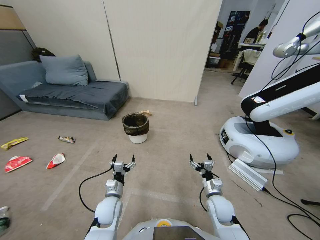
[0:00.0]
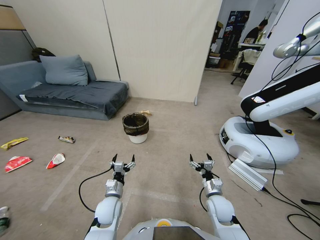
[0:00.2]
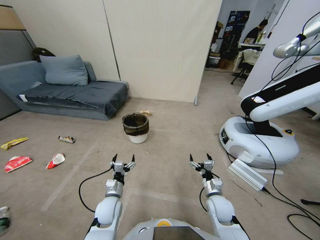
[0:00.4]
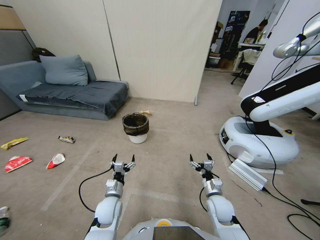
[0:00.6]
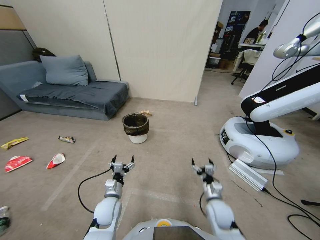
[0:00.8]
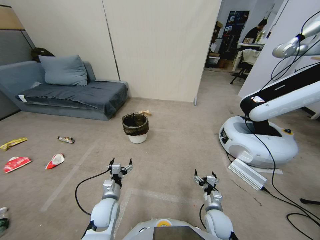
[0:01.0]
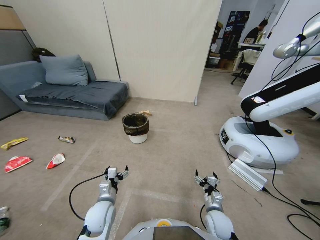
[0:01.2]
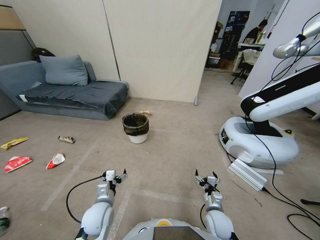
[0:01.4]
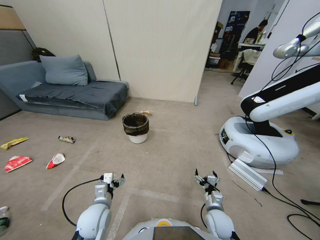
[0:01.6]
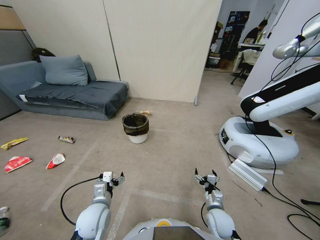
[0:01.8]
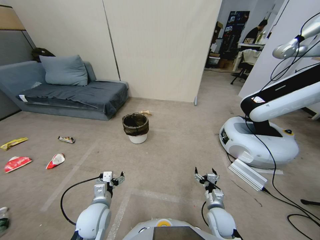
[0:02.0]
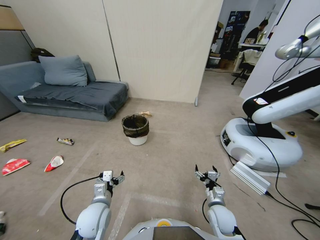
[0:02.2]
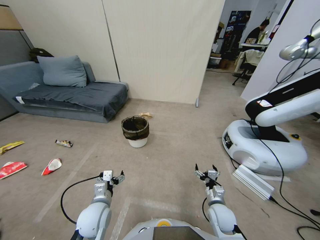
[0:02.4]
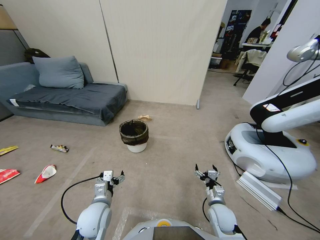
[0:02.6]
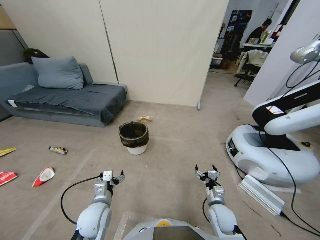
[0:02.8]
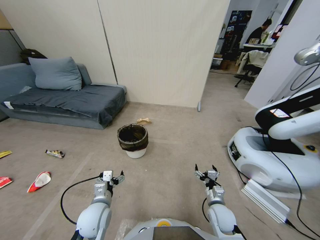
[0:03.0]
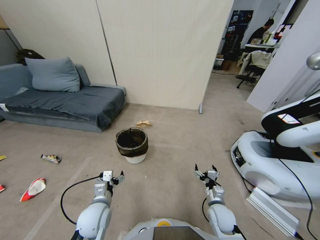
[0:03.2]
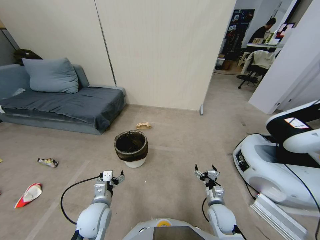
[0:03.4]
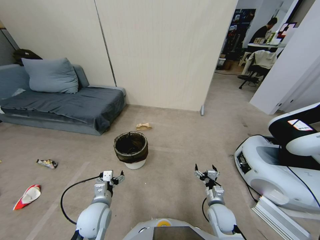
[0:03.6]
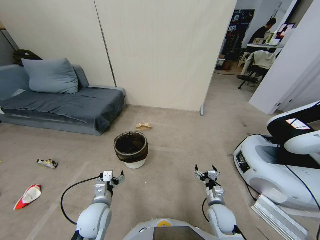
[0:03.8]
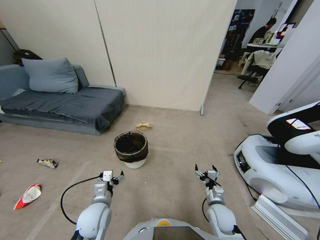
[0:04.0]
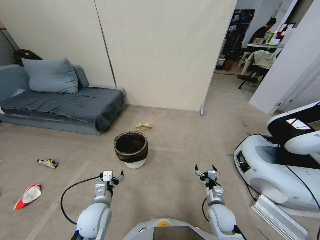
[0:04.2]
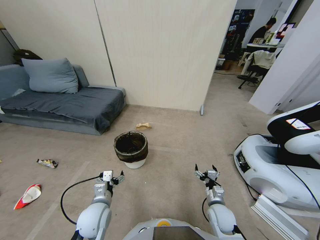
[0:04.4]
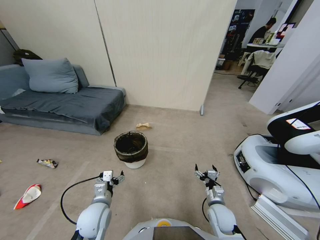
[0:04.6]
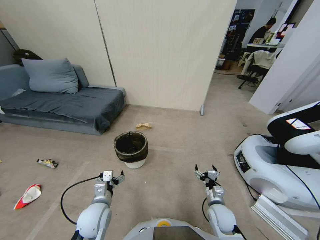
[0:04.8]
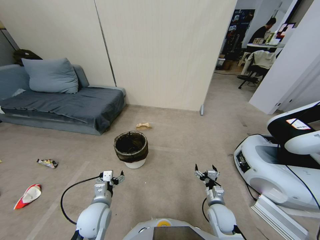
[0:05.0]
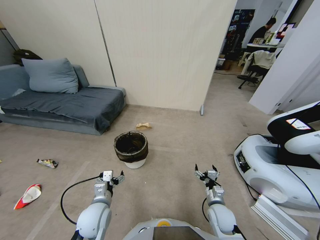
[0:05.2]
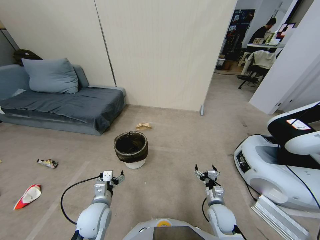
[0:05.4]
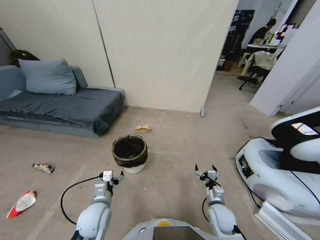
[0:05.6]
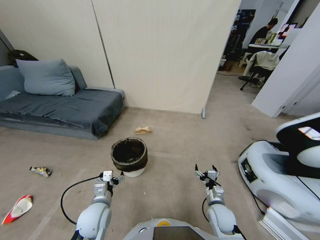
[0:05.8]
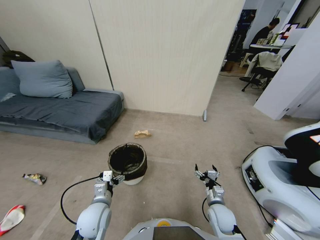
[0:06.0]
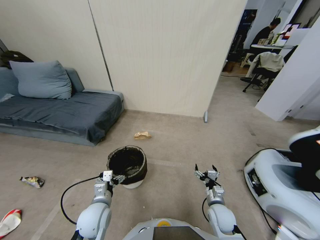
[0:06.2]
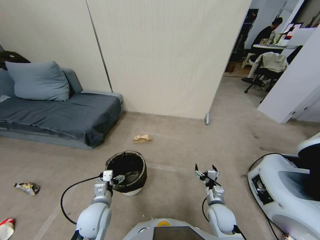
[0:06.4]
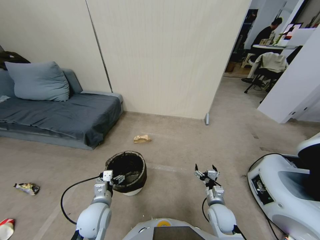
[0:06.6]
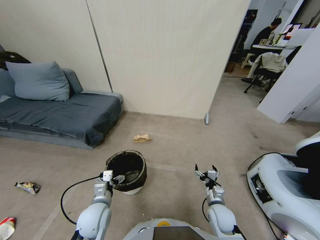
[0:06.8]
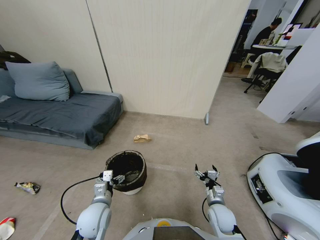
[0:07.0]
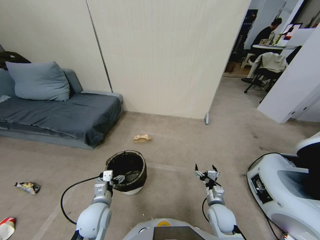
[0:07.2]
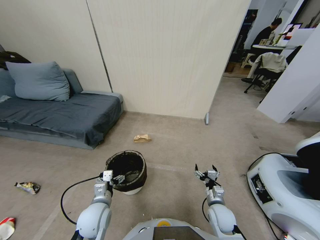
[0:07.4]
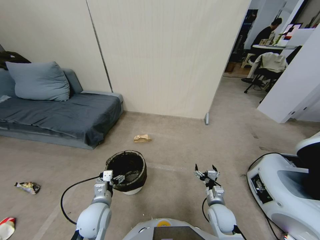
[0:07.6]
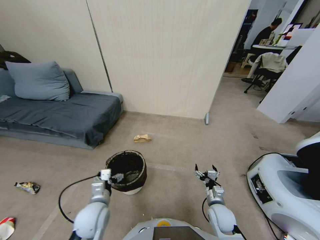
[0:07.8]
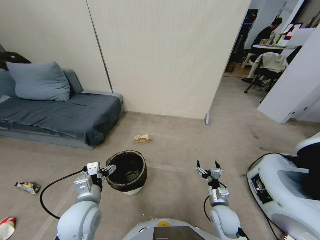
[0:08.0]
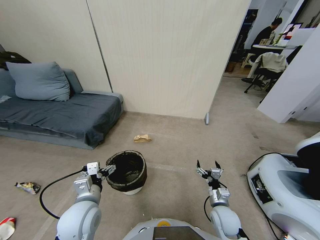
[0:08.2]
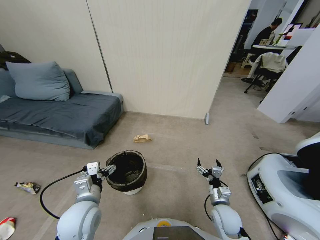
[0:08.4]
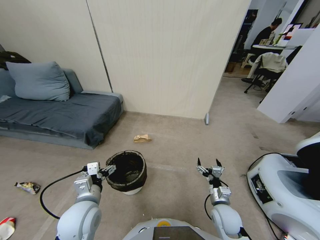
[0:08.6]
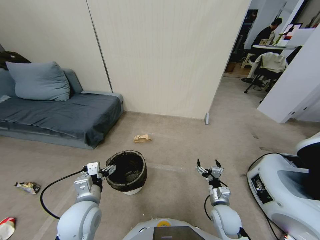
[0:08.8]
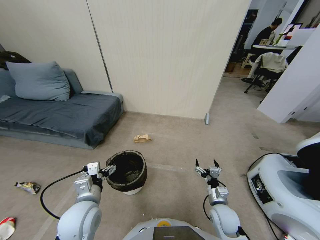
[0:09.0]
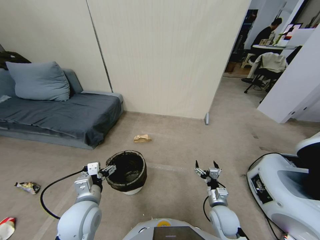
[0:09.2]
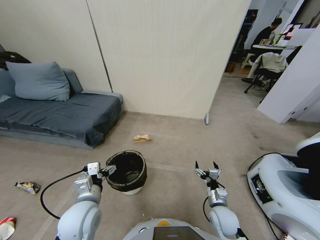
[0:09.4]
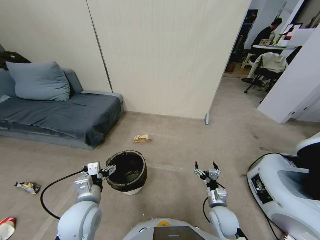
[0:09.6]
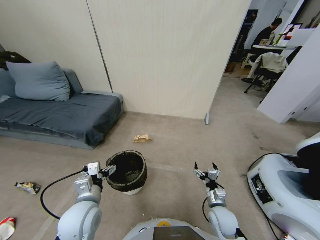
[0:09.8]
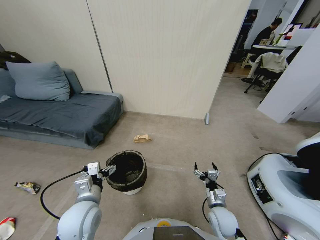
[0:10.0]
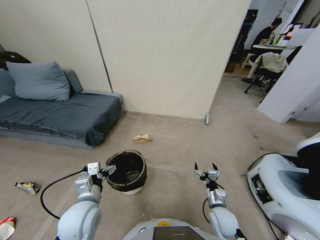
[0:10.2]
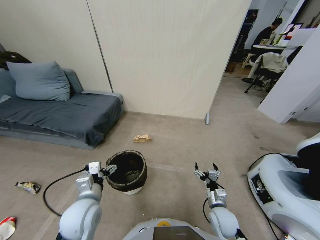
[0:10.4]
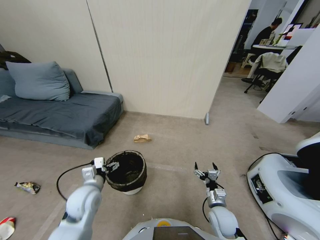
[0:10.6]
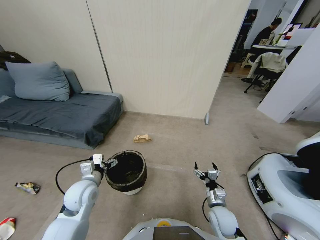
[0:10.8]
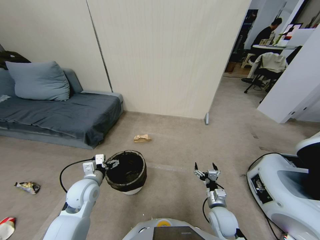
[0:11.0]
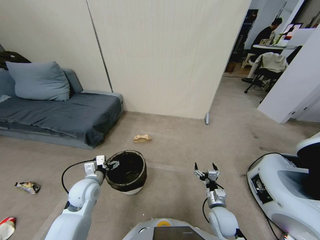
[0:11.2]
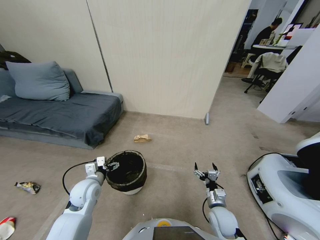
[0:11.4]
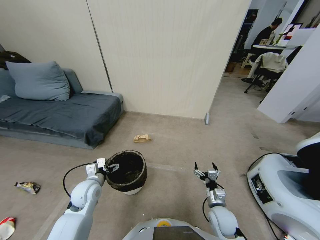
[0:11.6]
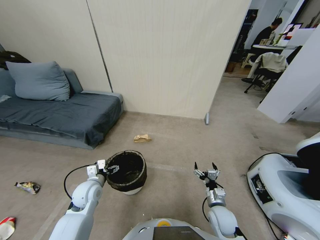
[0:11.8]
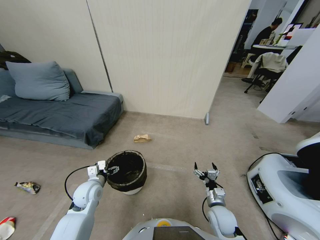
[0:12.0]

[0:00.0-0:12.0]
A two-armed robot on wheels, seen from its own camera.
Task of the whole recording: Pick up the trash bin, then pick up the garbage from the floor and place it into the trash bin.
0:06.0 to 0:07.6: Both grippers stay put.
0:07.6 to 0:09.0: The left gripper goes about 5 cm upward.
0:09.0 to 0:10.4: The left gripper ends up about 5 cm from where it was.
0:10.4 to 0:12.0: The left gripper goes approximately 5 cm downward.

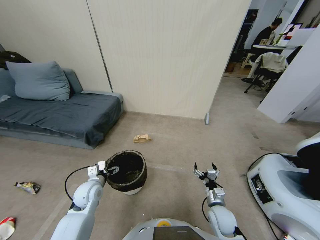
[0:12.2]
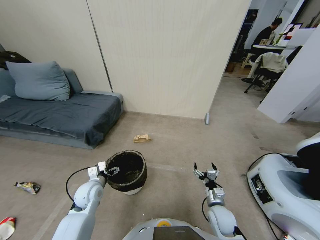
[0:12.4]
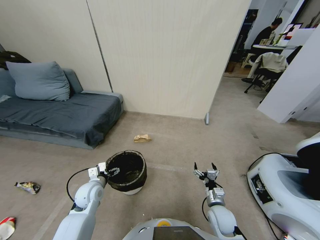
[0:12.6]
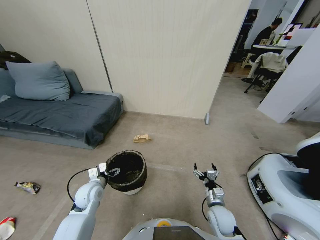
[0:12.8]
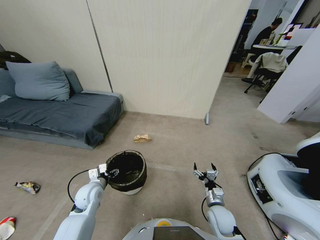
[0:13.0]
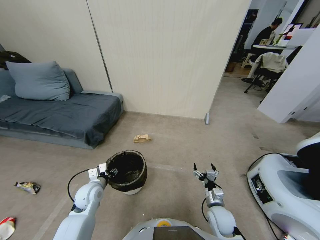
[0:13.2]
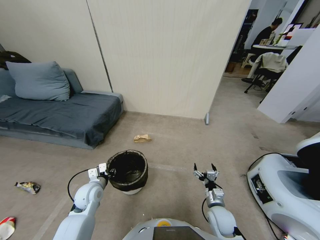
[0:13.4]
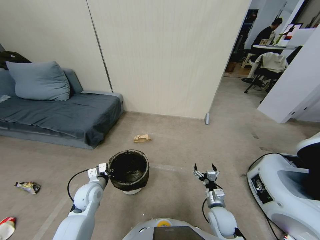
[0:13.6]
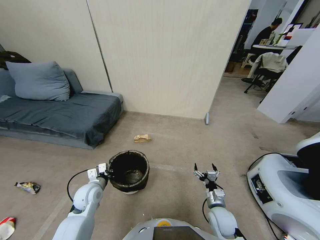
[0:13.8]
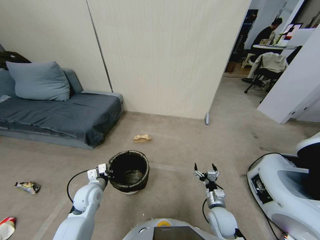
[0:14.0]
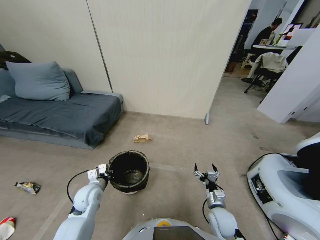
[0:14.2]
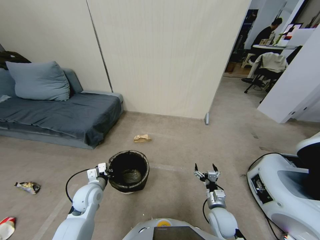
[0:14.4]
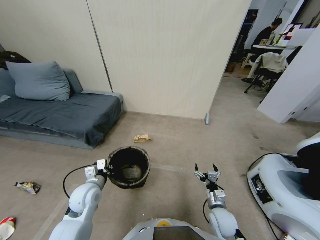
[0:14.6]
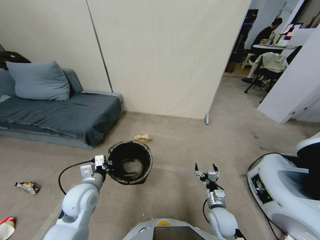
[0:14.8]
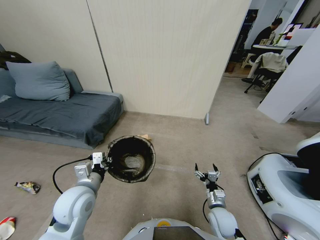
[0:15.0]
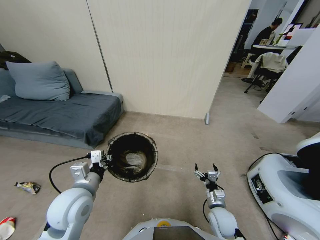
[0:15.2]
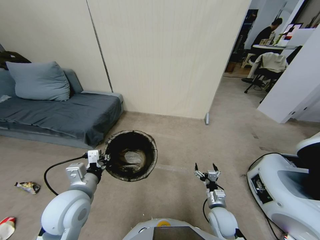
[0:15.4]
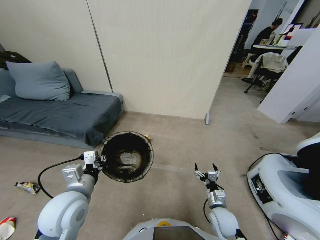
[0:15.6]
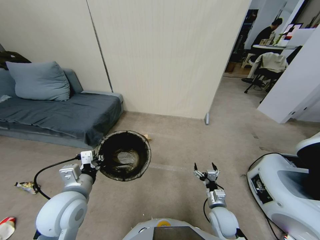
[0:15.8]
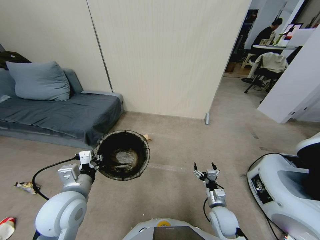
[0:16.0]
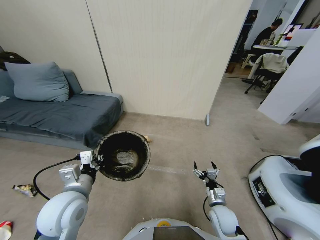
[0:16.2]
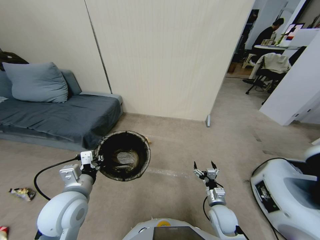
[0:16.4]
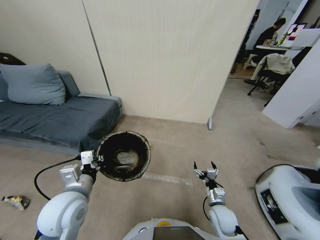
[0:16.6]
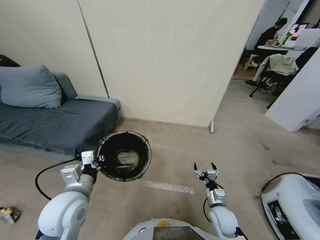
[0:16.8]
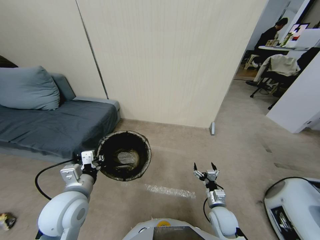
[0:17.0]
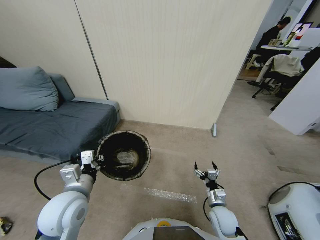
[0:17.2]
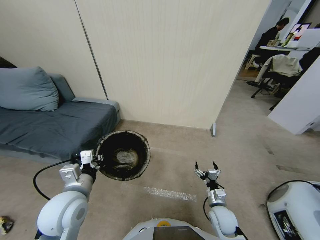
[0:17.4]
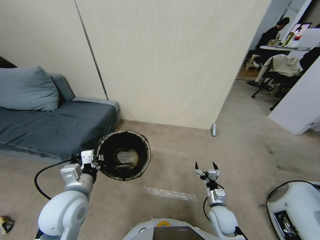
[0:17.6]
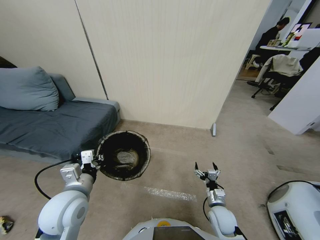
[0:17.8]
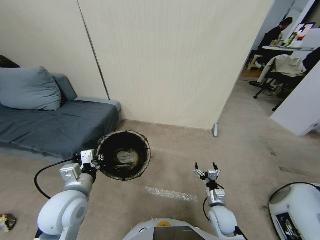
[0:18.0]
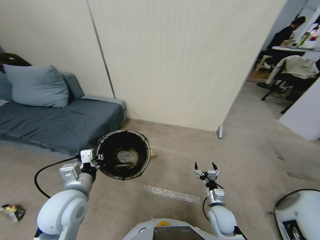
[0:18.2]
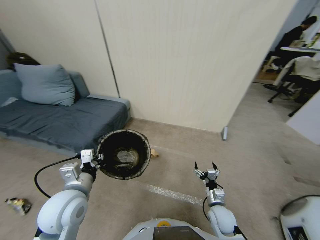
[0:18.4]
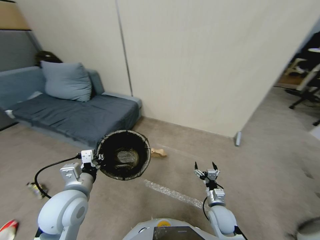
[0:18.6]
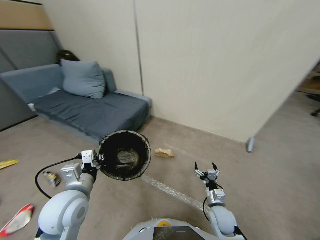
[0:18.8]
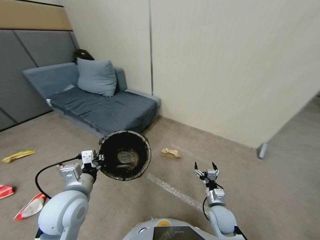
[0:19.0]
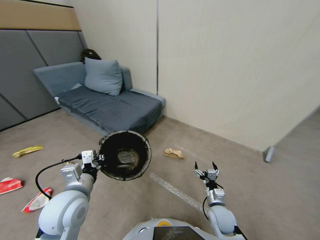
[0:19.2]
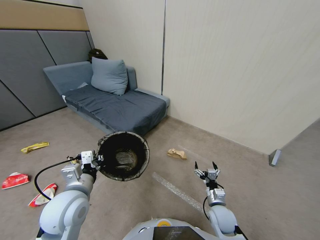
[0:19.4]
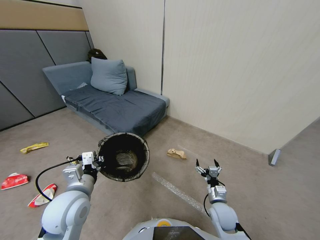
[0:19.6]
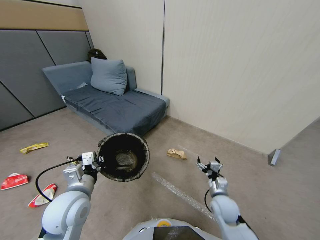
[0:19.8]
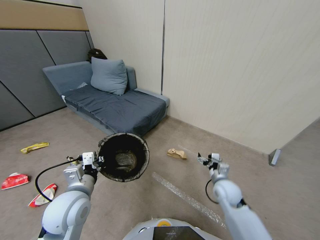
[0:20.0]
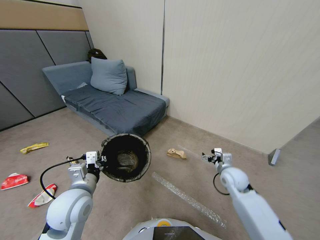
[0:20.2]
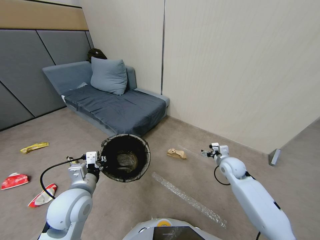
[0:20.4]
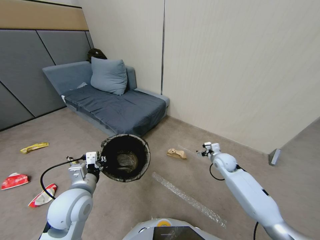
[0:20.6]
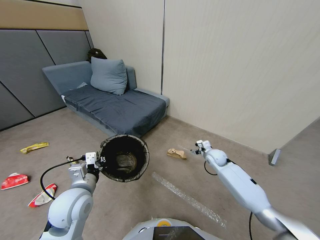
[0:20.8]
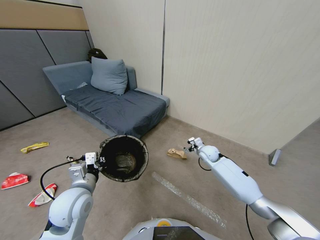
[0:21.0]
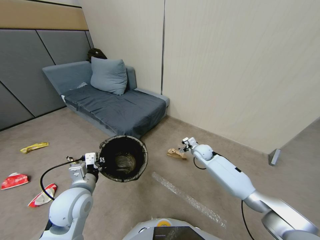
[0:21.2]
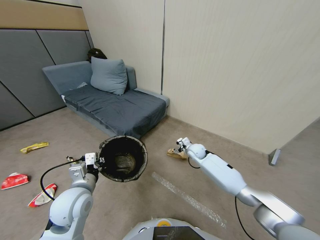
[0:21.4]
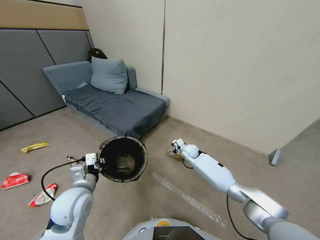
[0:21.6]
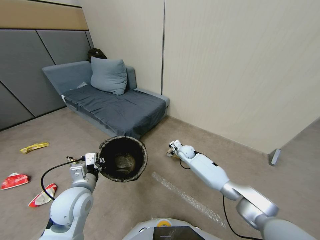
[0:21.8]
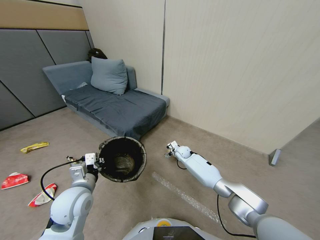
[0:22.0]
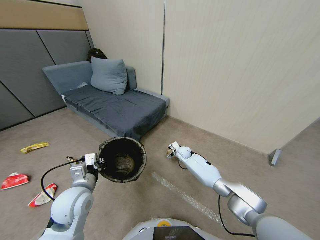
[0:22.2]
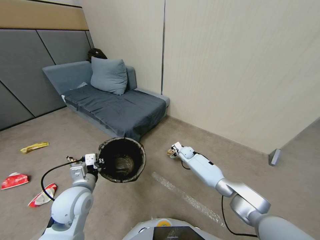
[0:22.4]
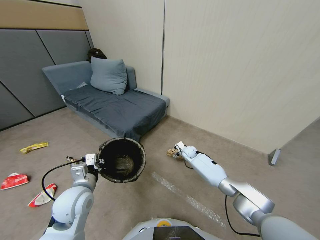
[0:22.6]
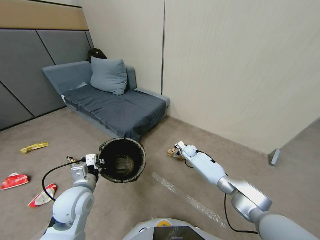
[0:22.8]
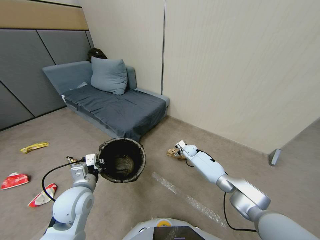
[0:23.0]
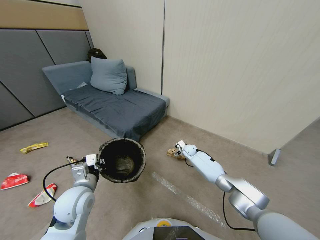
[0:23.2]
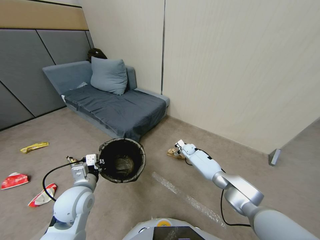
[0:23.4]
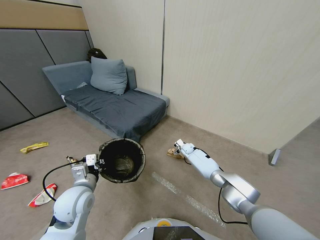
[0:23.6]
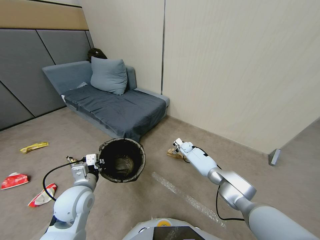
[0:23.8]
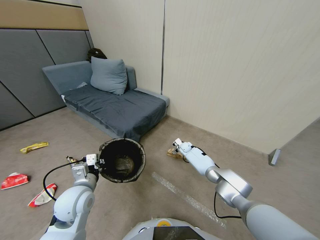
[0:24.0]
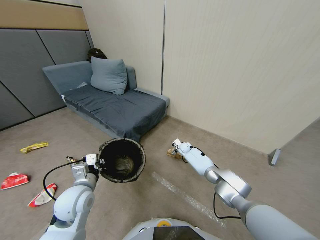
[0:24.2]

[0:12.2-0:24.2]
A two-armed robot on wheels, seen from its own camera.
Task of the whole recording: Pick up the trash bin, then pick up the garbage from the floor and place it into the trash bin.
0:12.2 to 0:13.8: The left gripper closes up.
0:13.8 to 0:15.2: The left gripper moves upward and backward, some 15 cm.
0:18.2 to 0:19.8: The right gripper heads upward and forward, covering about 10 cm.
0:19.8 to 0:21.2: The right gripper travels forward by some 25 cm.
0:21.2 to 0:22.6: The right gripper heads downward and forward, covering some 10 cm.
0:22.6 to 0:24.2: The right gripper ends up approximately 5 cm from where it was.
